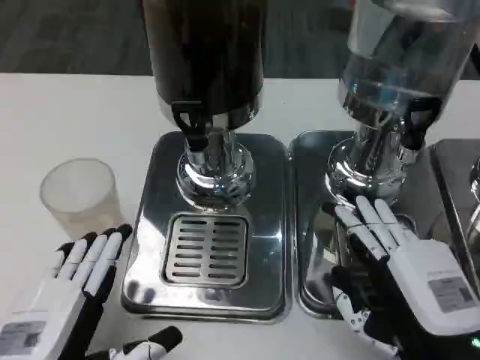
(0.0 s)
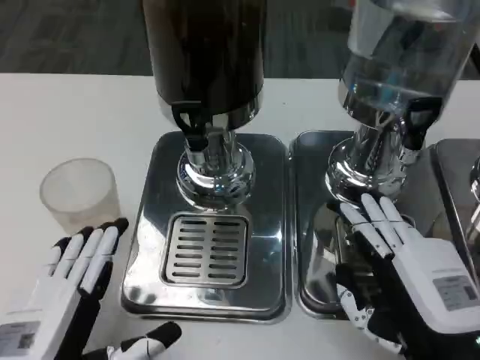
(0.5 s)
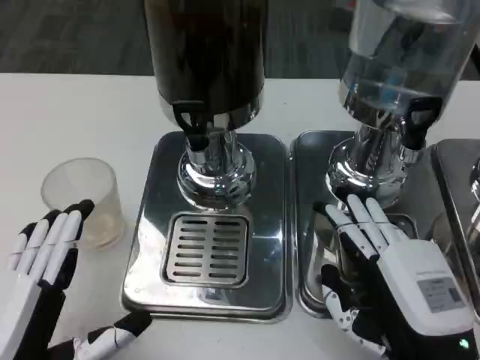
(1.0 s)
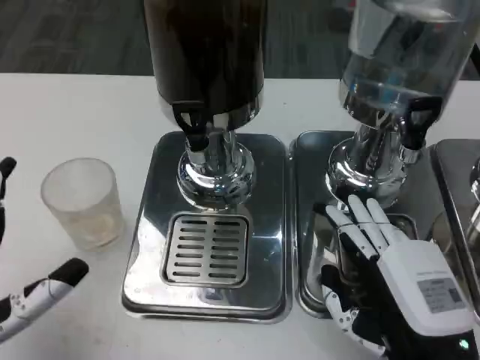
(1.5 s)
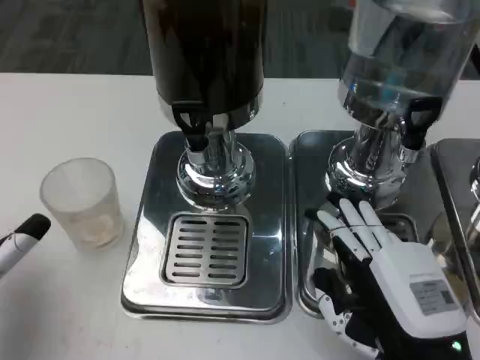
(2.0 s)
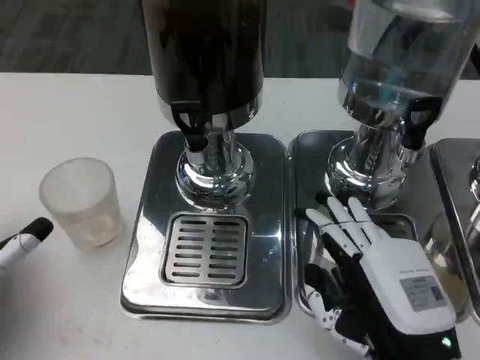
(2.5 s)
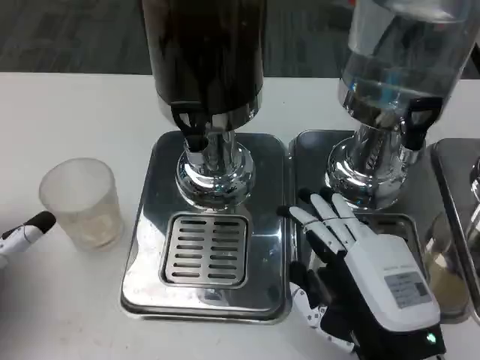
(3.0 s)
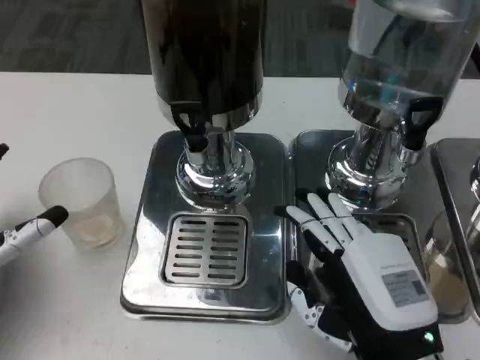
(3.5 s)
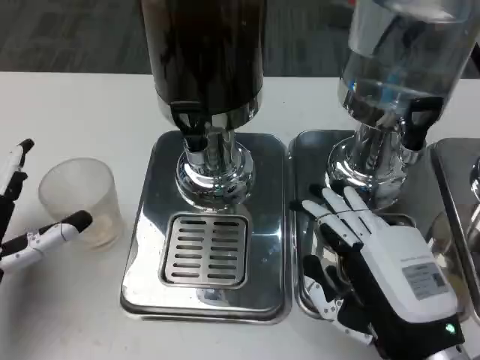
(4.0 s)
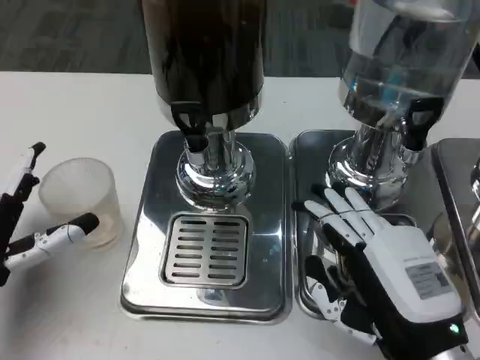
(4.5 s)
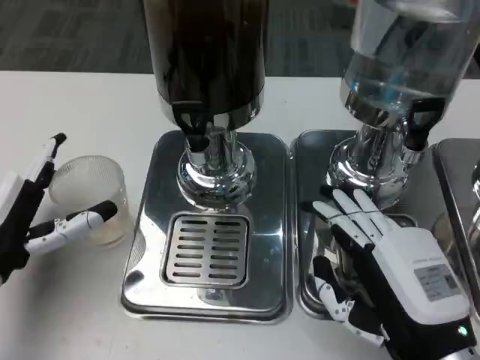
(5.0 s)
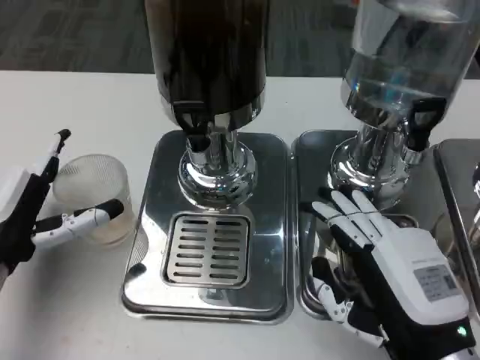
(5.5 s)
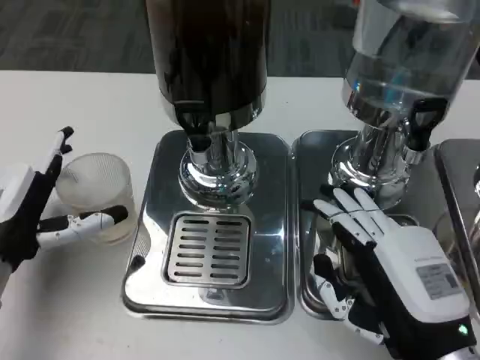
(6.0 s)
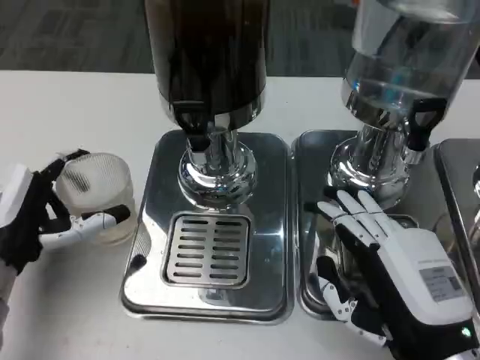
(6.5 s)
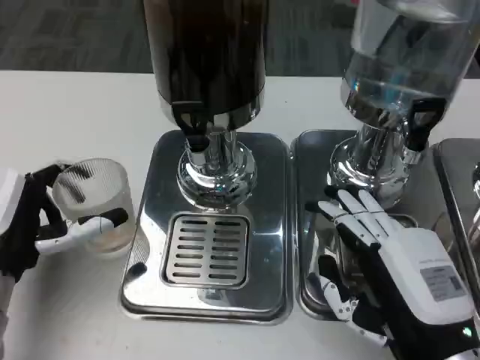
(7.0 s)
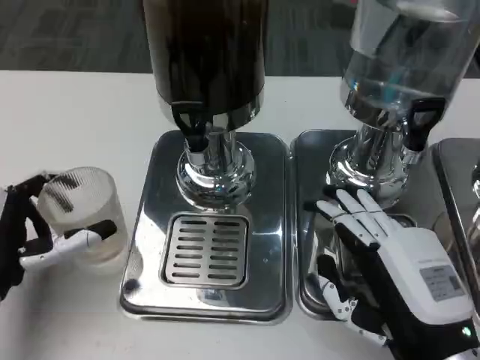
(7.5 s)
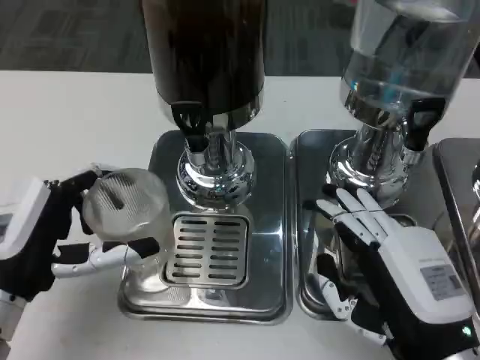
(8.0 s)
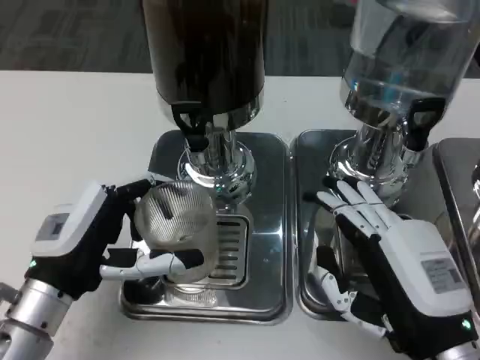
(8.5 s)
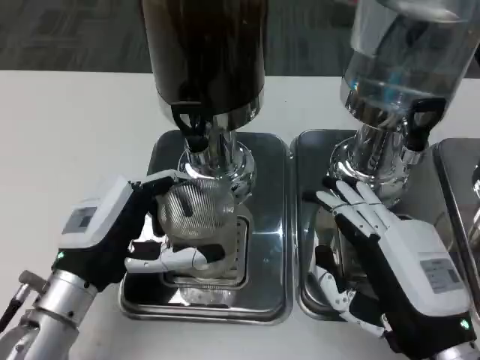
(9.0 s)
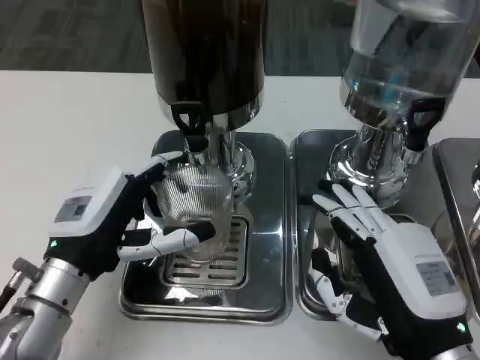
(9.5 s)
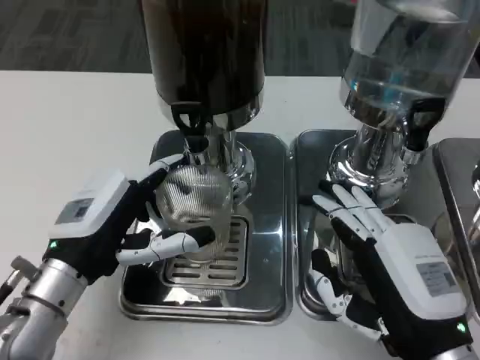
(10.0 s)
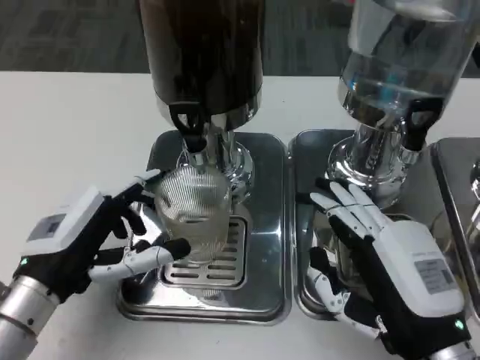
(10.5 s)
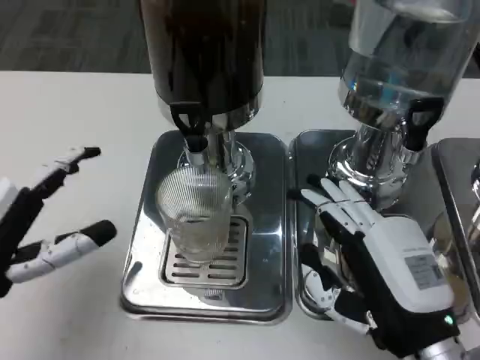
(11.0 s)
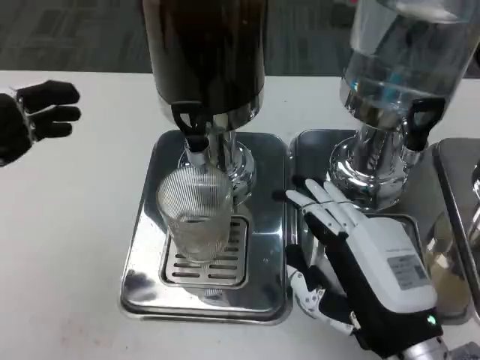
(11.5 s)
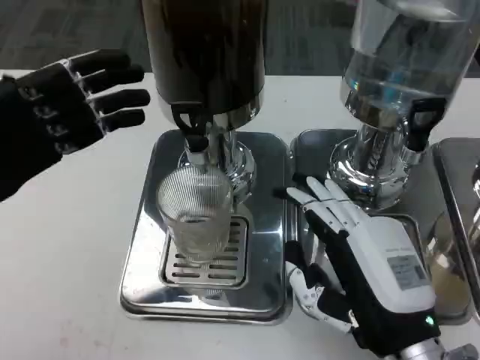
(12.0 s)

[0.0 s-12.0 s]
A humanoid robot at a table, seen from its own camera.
Task of the whole recording: Grasp the cup under the faucet to collect the drink, then remove the cup.
0.0 to 2.0 s: The left hand travels to the left and forward by about 10 cm.
2.0 to 4.0 s: The left hand ends up approximately 5 cm from where it was.
8.0 to 10.0 s: The left hand shifts by about 5 cm.
10.0 to 12.0 s: The left hand heads to the left and upward, covering some 15 cm.

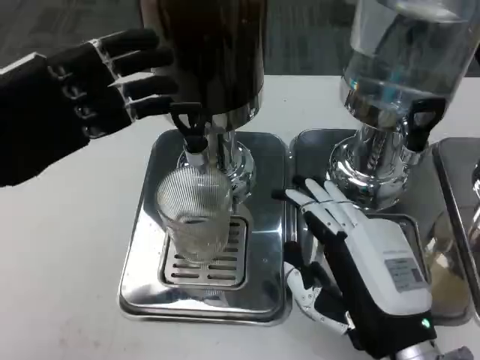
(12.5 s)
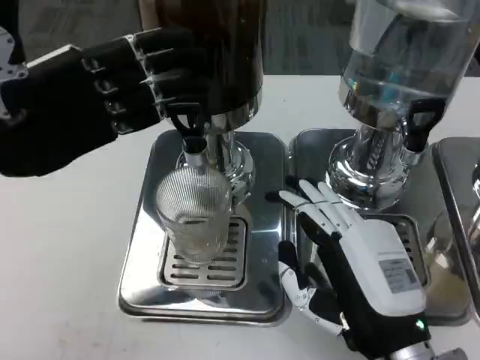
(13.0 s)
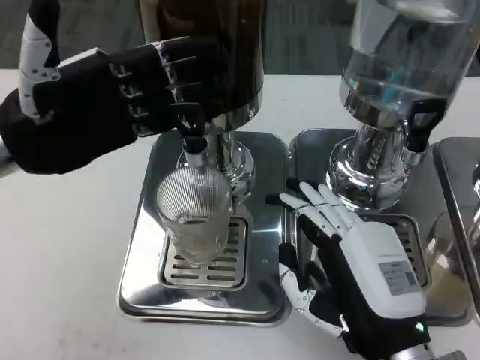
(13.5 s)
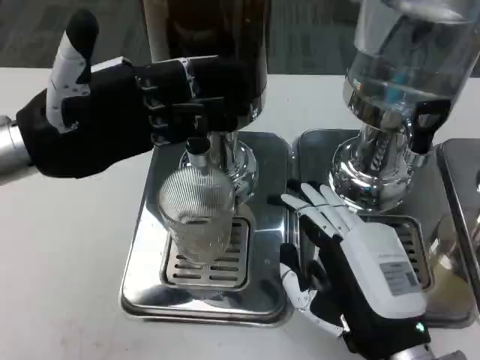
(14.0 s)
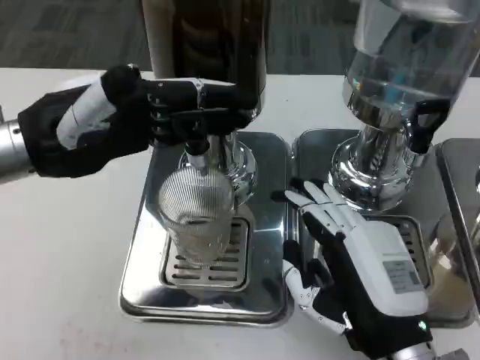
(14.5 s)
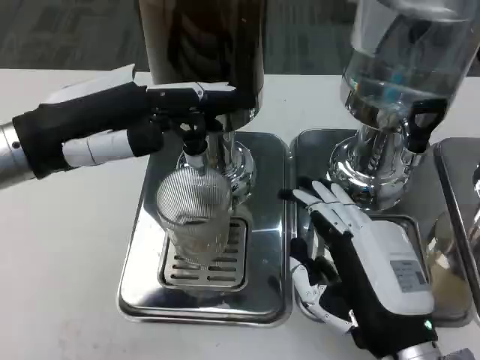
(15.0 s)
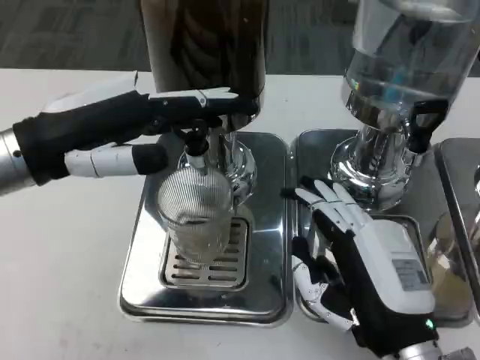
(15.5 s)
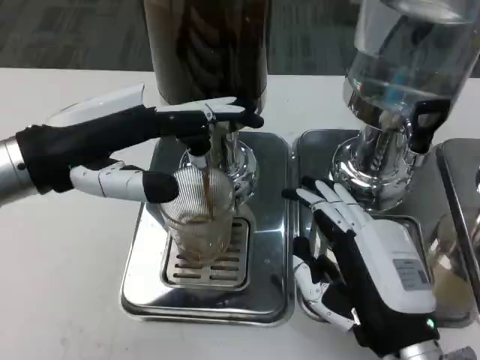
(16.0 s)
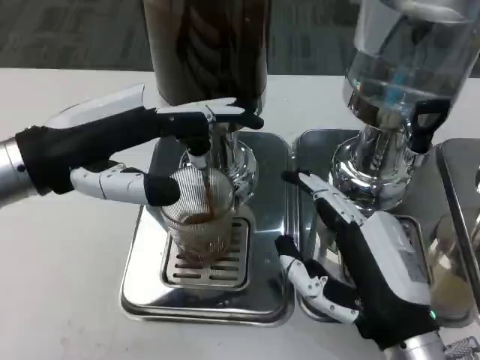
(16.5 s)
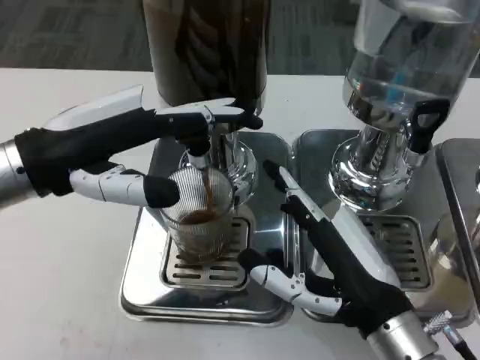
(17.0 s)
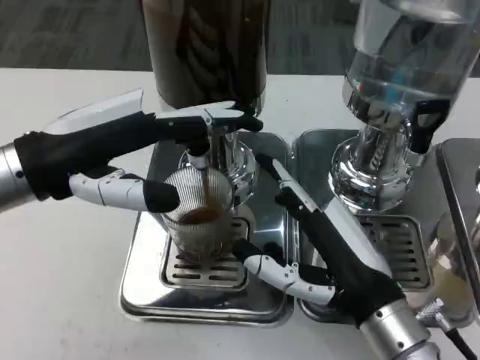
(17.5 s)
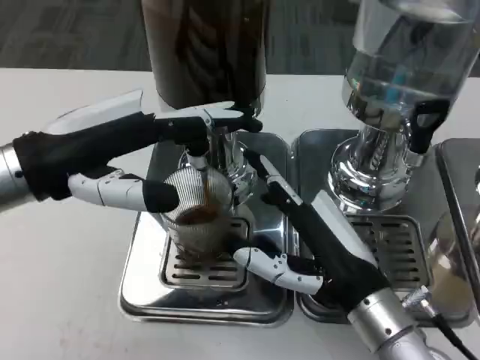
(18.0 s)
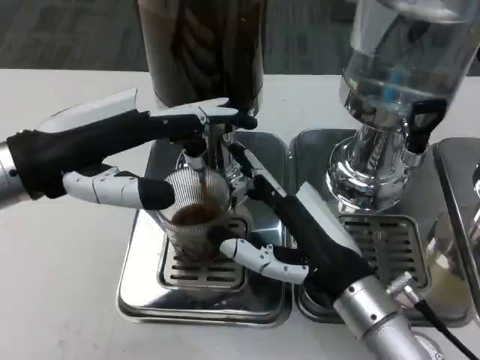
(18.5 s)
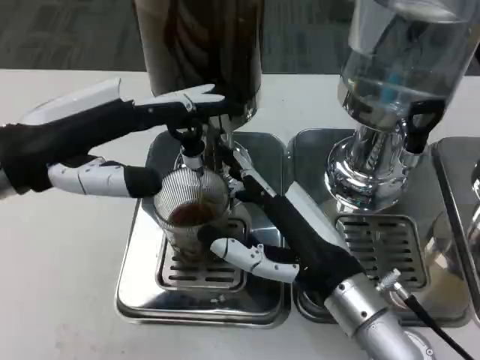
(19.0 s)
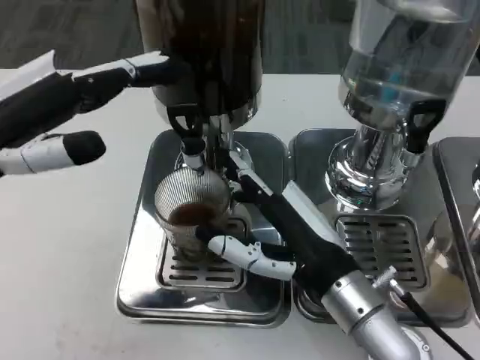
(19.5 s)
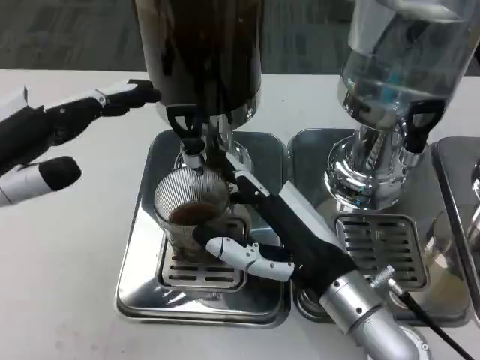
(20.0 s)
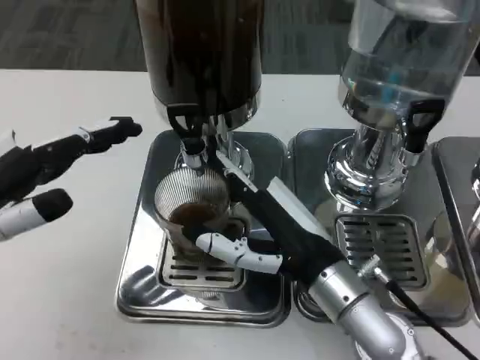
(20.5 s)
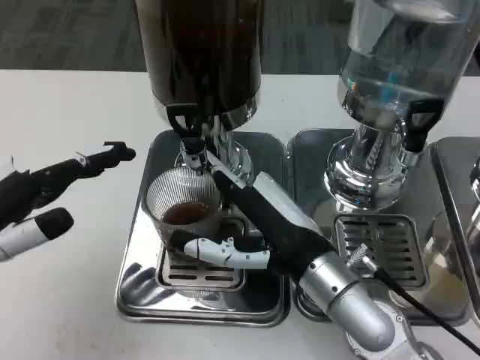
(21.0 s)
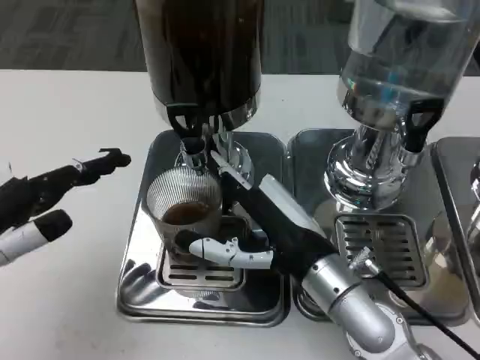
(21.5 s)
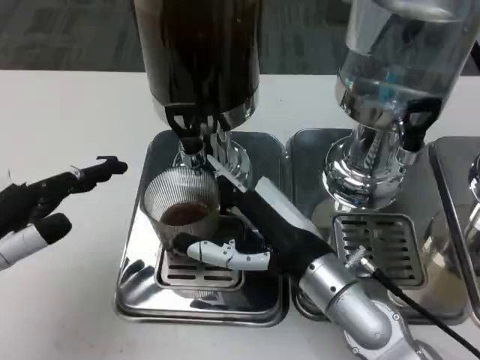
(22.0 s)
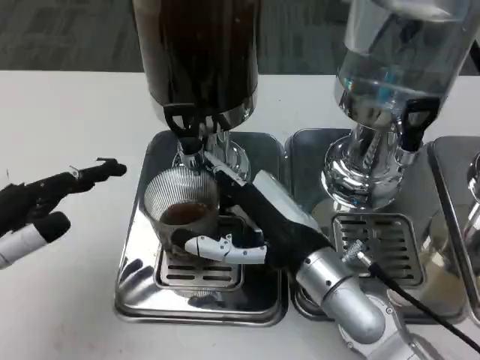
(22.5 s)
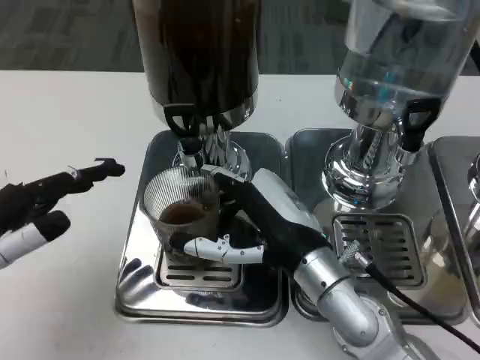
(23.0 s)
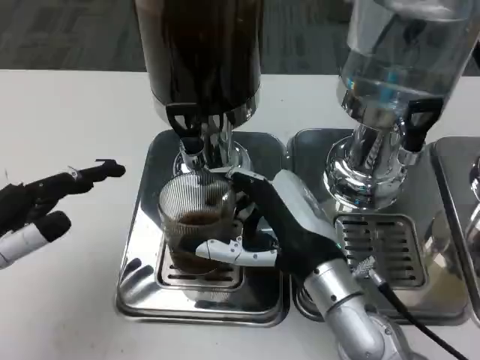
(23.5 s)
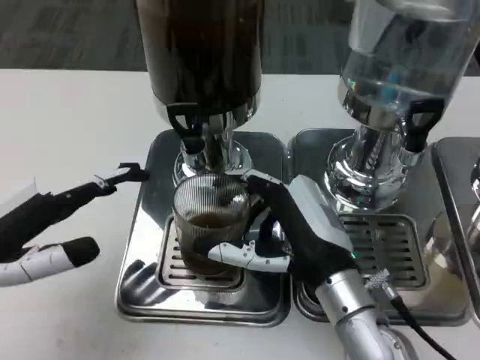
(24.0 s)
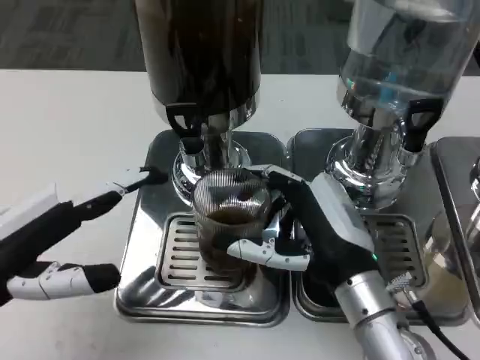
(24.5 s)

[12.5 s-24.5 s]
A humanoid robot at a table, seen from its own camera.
Task of the whole recording: Grasp the cup under the faucet to collect the drink, then remove the cup.
12.5 to 14.5 s: The left hand is displaced to the right by some 5 cm.
16.5 to 18.5 s: The right hand goes roughly 5 cm forward.
18.5 to 20.5 s: The left hand moves backward and to the left, about 10 cm.

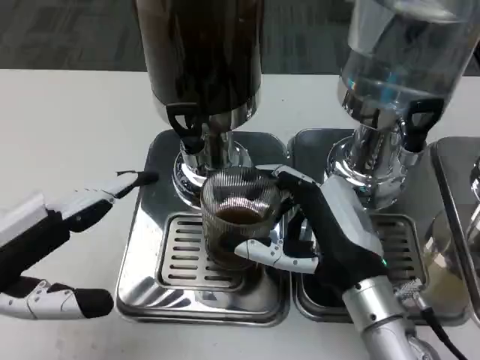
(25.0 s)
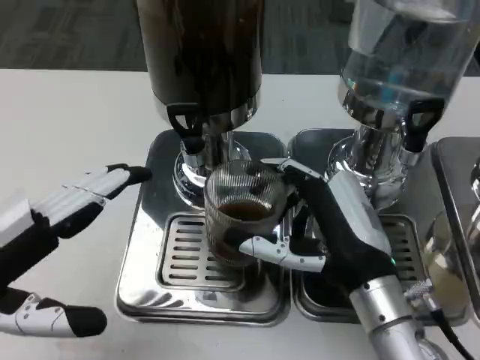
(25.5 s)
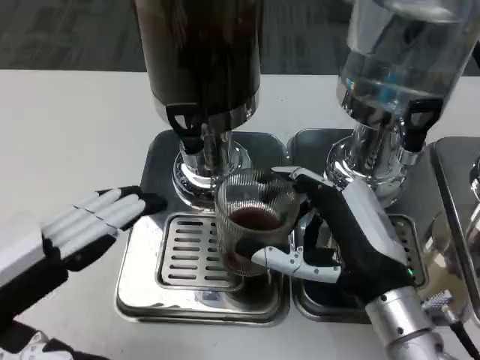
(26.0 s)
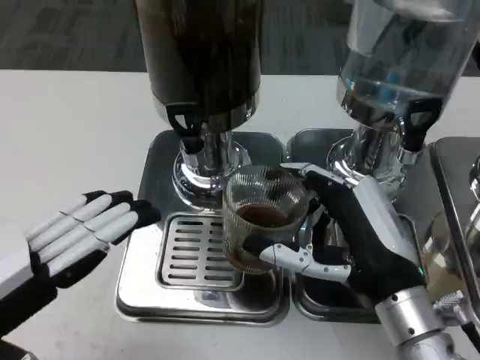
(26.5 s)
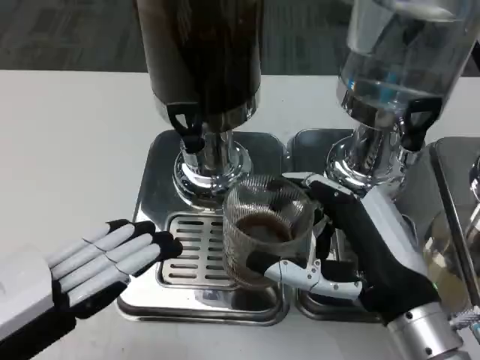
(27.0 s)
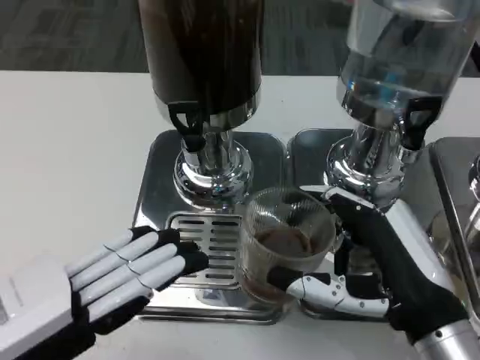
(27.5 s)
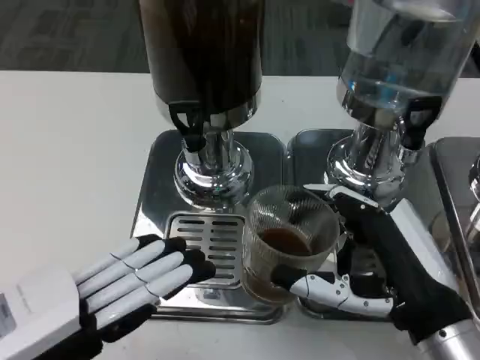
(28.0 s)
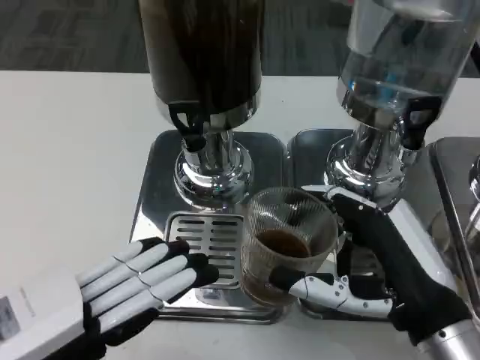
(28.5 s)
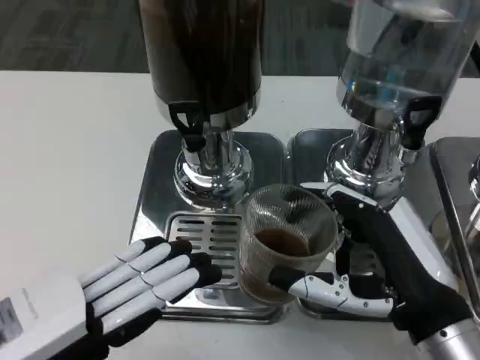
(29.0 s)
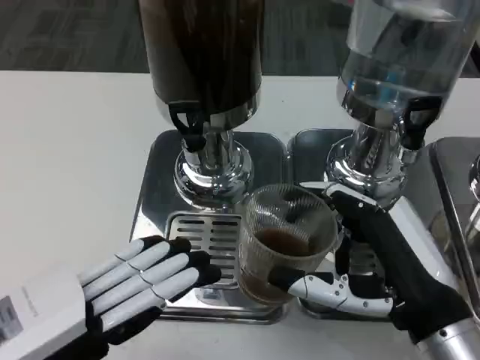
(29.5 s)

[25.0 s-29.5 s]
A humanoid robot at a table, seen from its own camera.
Task of the whole recording: Grasp the cup under the faucet to collect the drink, then remove the cup.
25.0 to 27.0 s: The right hand moves about 5 cm; the left hand travels backward by roughly 5 cm.
